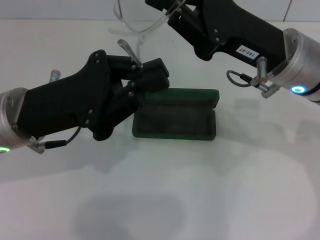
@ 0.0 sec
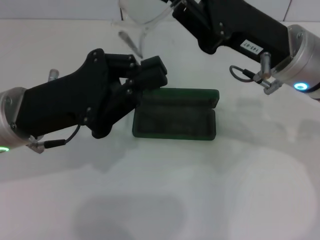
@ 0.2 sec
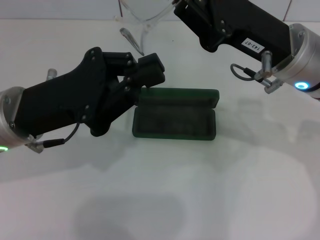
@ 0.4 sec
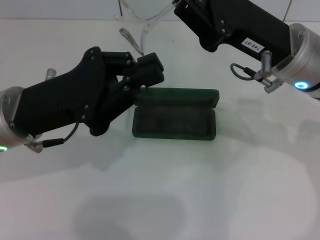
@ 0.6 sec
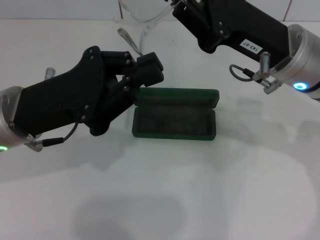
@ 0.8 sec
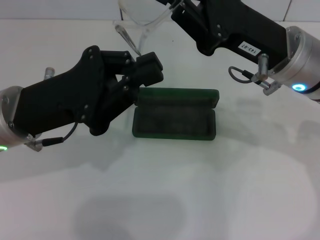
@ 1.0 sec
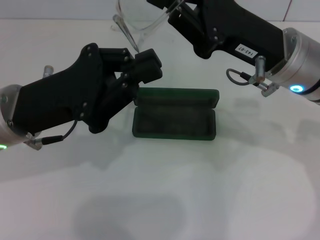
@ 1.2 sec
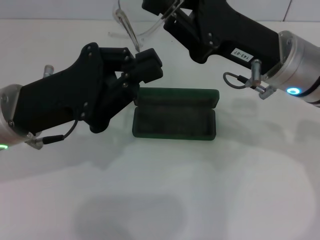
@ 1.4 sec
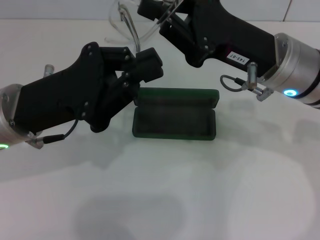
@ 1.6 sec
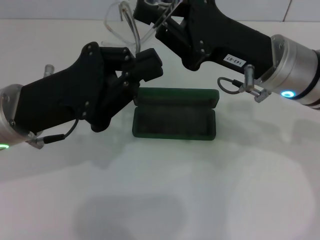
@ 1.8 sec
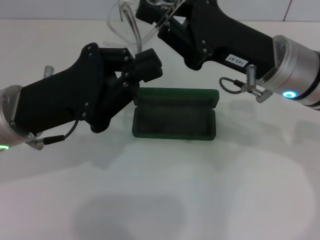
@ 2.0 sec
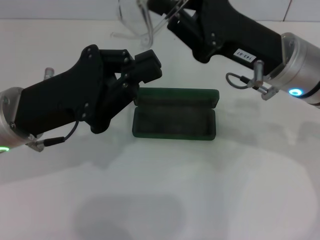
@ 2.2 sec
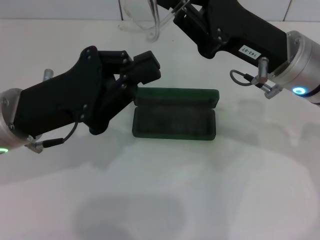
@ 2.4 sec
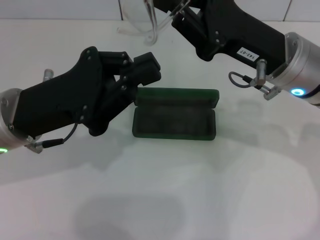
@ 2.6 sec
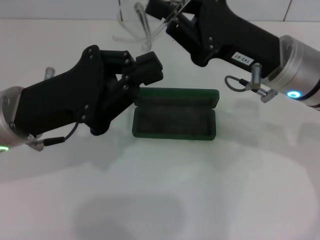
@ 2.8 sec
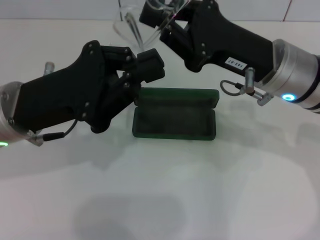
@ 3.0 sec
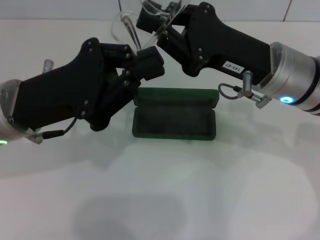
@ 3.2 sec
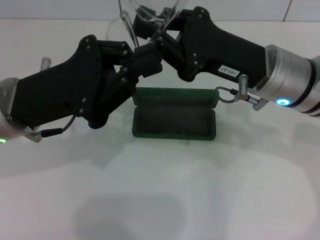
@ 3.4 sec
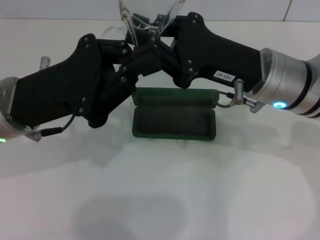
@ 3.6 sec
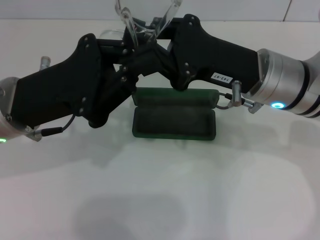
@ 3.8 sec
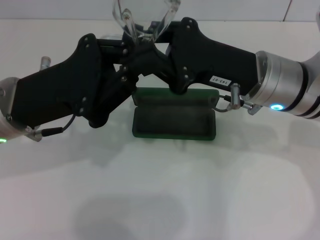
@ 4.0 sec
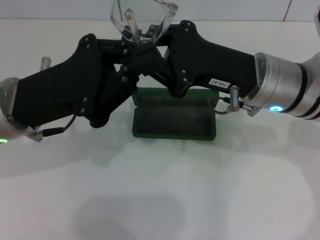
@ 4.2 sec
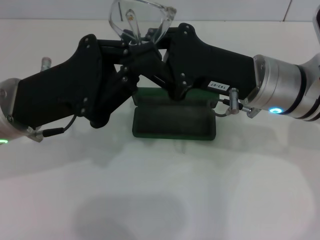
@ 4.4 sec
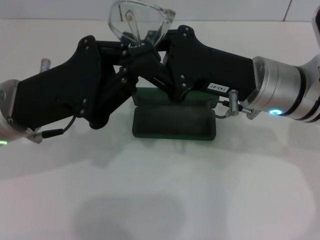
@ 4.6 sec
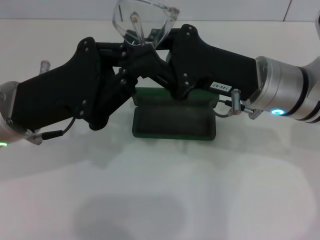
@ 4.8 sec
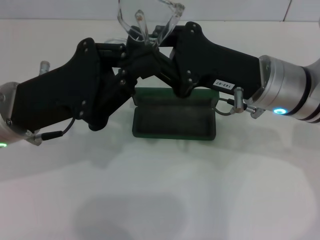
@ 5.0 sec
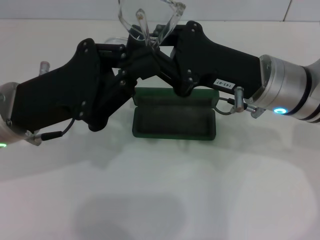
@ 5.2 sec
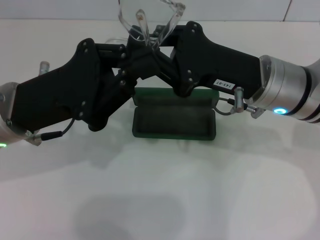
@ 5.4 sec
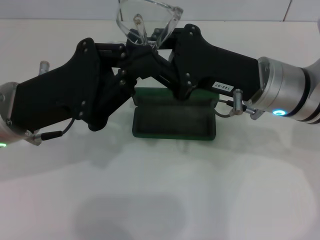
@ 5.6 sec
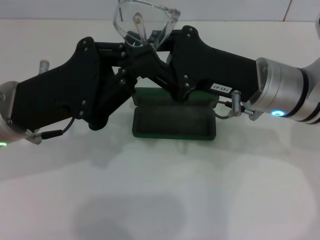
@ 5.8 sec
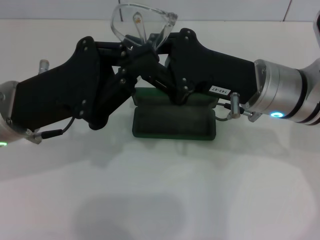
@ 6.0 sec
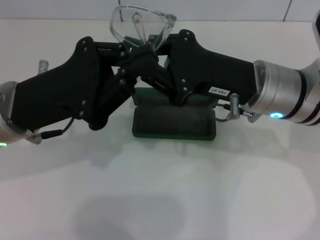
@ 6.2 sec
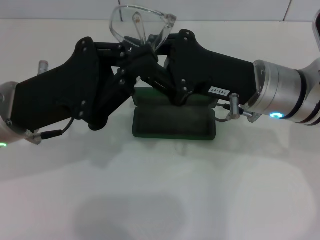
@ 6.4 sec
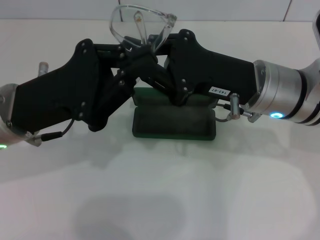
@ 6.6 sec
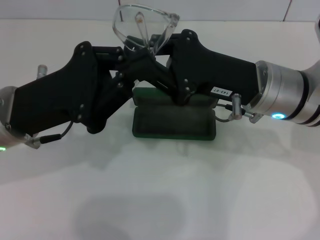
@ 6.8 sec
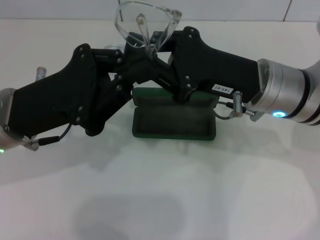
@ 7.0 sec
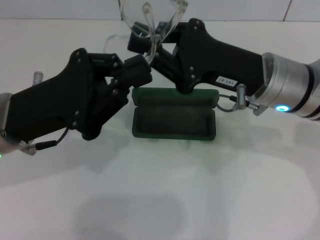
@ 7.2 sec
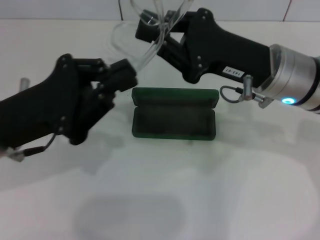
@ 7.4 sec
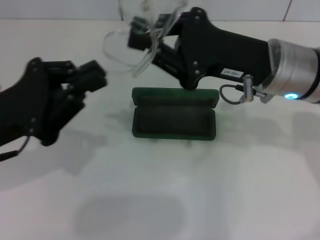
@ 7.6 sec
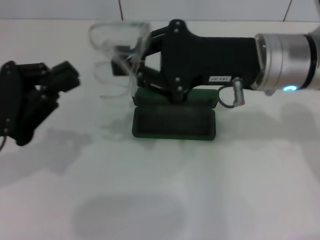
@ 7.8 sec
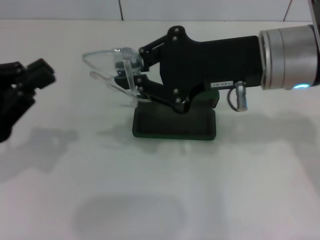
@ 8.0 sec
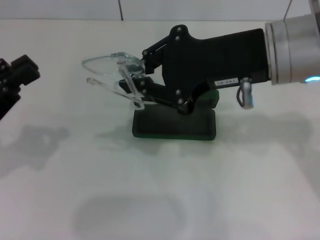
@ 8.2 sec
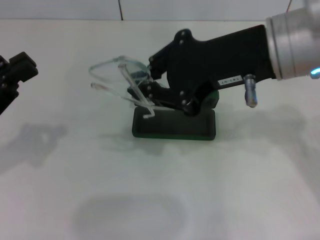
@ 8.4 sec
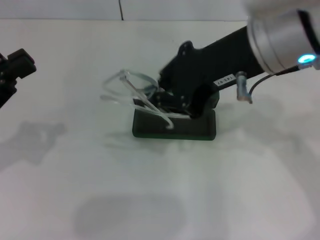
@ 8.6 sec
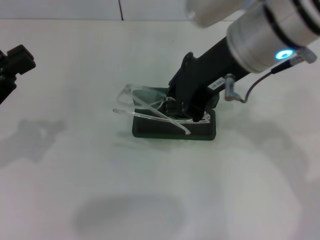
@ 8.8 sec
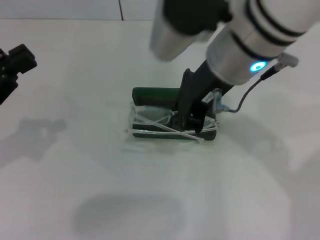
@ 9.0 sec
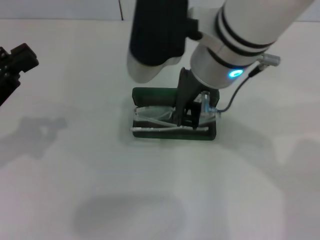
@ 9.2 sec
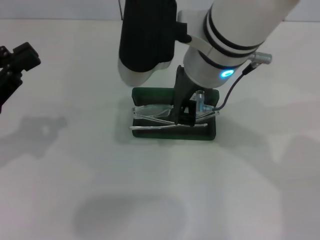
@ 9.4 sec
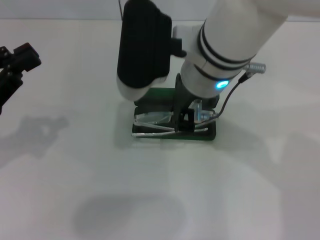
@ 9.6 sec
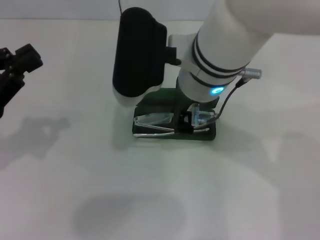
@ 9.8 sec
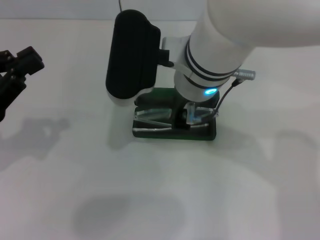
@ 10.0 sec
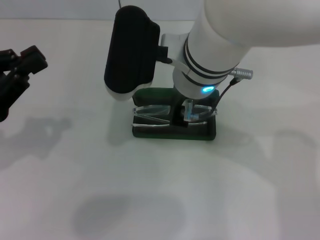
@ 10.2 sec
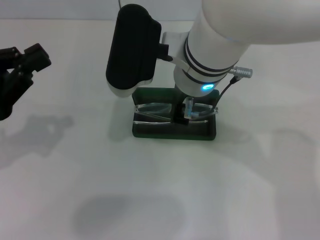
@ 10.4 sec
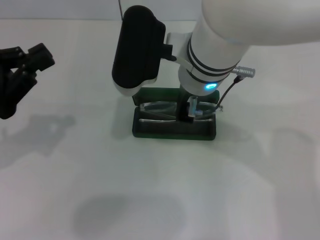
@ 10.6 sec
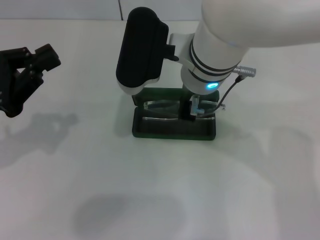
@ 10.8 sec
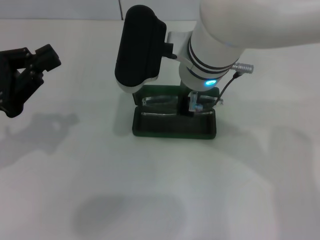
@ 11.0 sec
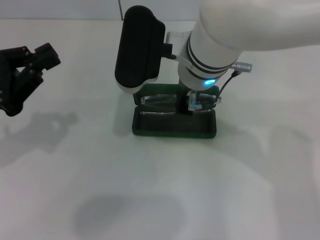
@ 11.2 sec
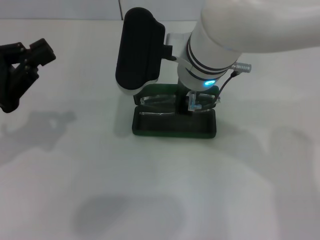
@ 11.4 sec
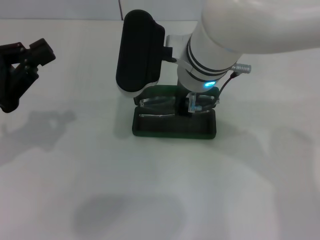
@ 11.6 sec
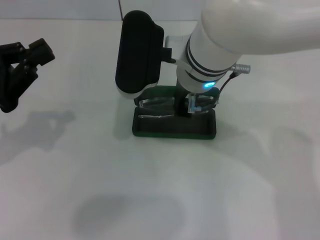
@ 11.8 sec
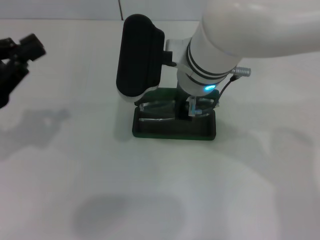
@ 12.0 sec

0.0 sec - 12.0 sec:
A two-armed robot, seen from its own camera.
Step, 0.0 sec - 4.4 sec: Fold the frame with your left hand.
0.0 sec - 3.0 sec: Both grippers stay about where they are.
4.4 sec - 6.0 sec: Both grippers stay about where they are.
6.0 sec - 7.6 sec: The left gripper moves to the left, roughly 5 cm.
7.6 sec - 9.0 sec: The right gripper moves to the left and upward, roughly 10 cm, while the left gripper moves to the left, some 5 cm.
9.0 sec - 10.4 sec: The right gripper ends up roughly 5 cm from where it was.
10.4 sec - 12.0 sec: There are only small adjustments of the grippers.

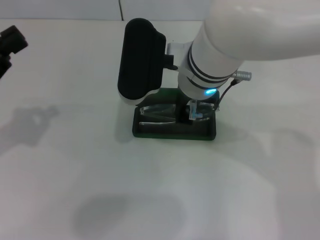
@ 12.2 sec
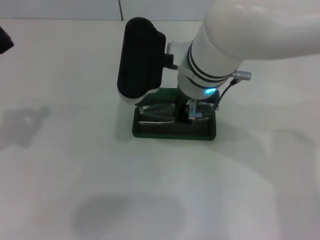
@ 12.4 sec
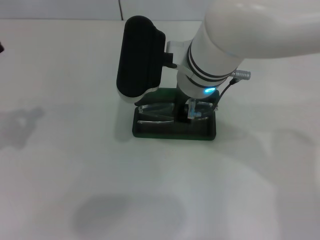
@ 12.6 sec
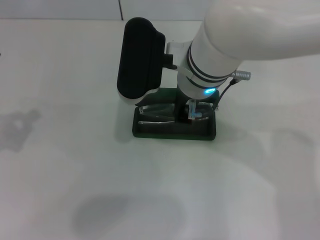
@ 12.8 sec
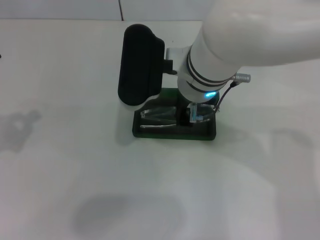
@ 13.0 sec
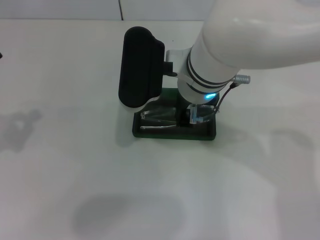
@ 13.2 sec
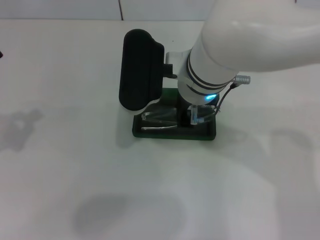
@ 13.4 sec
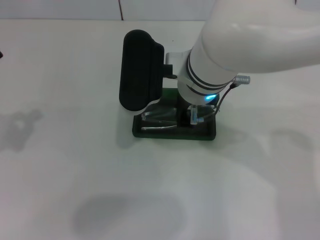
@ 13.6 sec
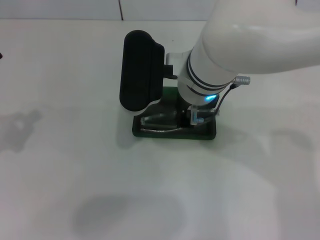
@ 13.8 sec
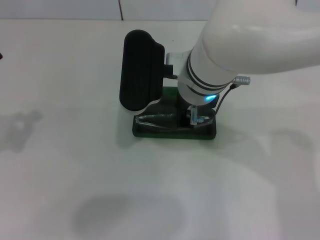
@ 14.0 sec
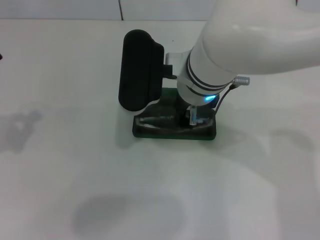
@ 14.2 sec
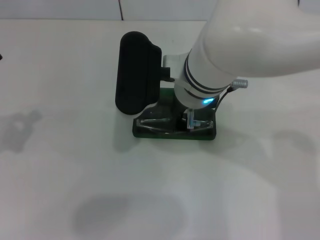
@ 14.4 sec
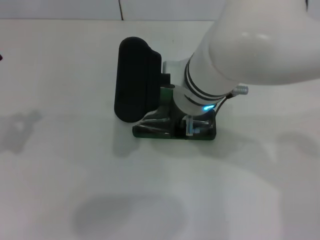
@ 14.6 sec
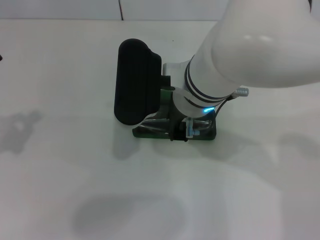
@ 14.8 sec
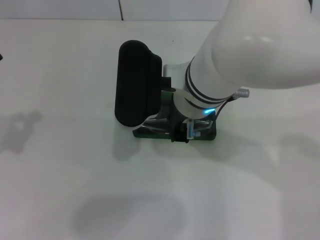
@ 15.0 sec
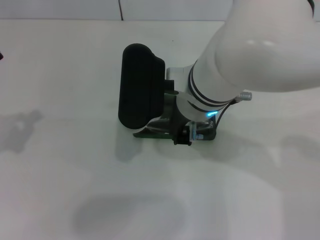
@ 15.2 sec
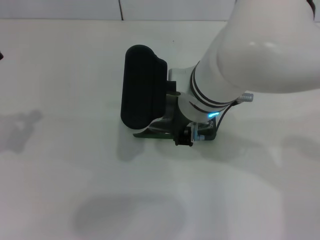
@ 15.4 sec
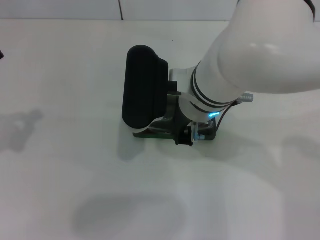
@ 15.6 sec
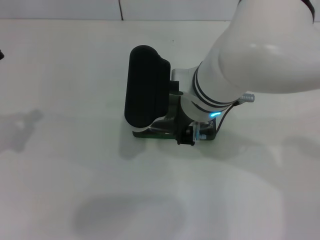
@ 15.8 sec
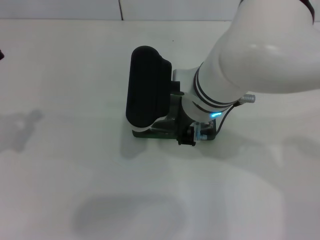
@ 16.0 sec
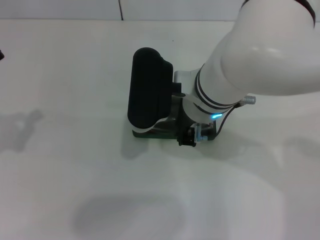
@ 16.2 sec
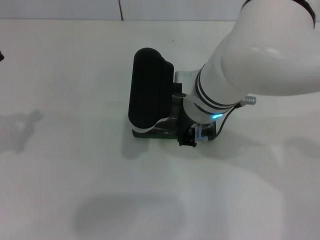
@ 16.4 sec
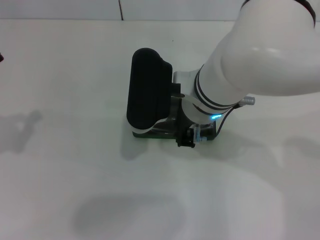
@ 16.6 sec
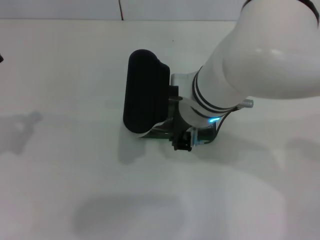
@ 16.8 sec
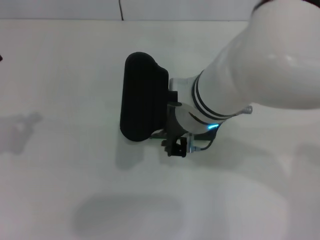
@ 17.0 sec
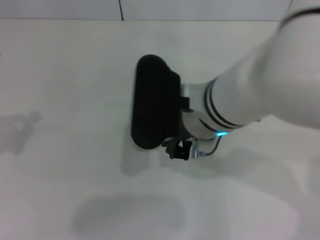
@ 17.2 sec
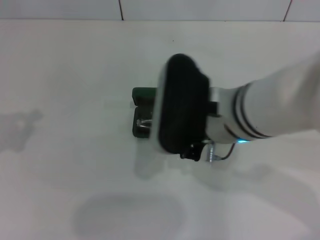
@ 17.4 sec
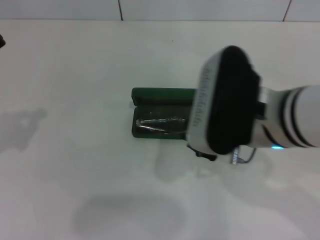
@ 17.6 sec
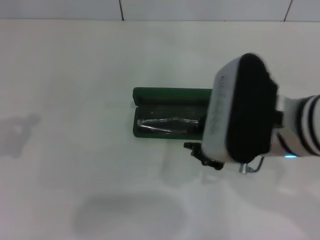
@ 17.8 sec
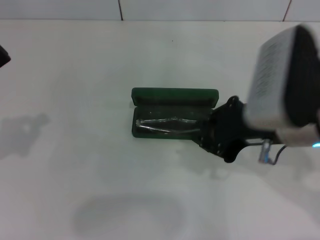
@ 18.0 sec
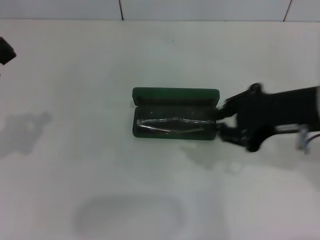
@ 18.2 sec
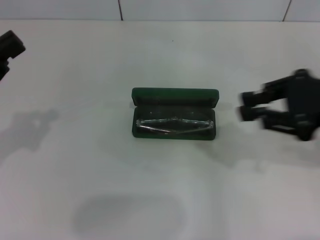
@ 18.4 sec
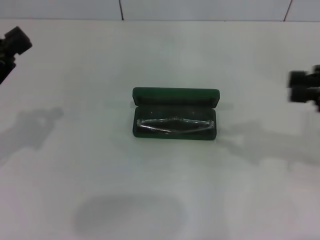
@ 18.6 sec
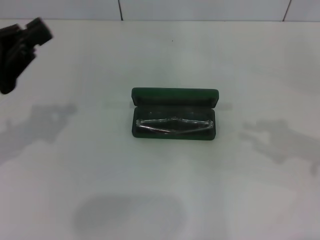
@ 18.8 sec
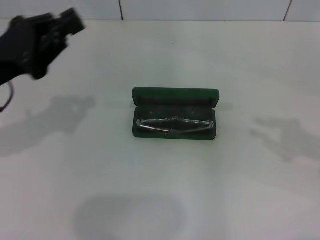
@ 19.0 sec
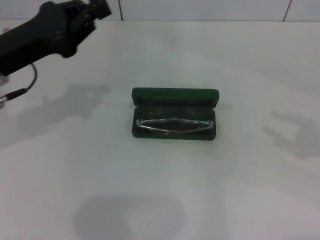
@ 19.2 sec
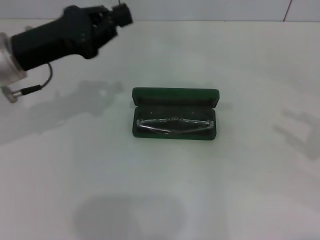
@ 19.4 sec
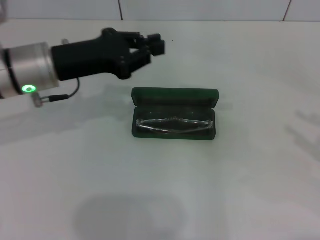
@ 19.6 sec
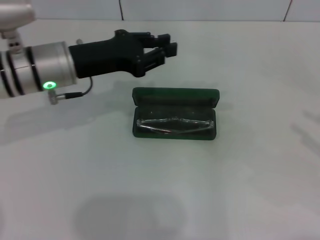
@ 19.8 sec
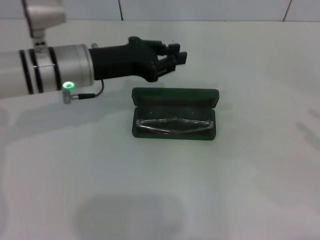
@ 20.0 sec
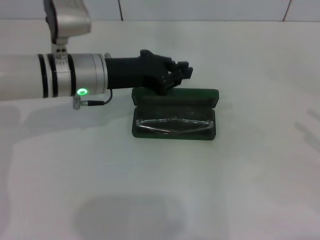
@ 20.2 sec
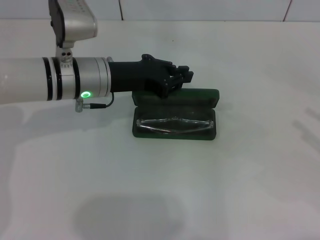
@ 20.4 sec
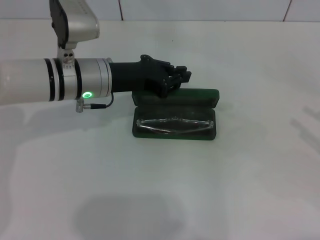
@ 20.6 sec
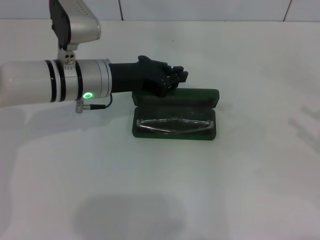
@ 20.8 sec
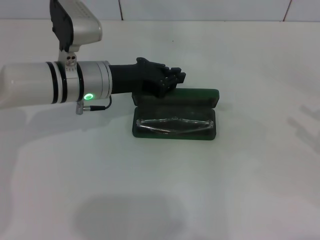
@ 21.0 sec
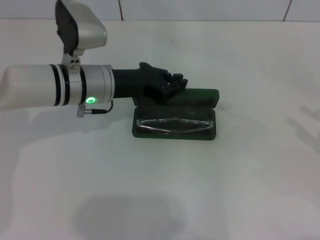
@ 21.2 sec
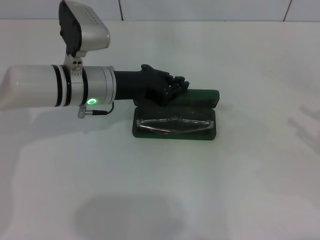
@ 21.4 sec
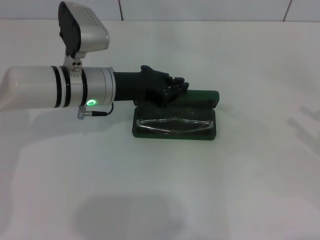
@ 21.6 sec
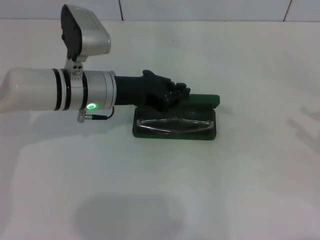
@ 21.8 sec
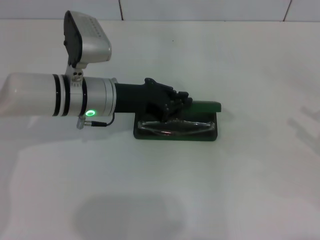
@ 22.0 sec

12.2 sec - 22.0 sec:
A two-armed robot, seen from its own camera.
Step, 12.2 sec - 14.2 sec: Put the glasses into the case with your right hand.
12.2 sec - 16.4 sec: The grippers make only small movements.
16.4 sec - 17.8 sec: The right gripper is displaced to the right and backward by about 10 cm.
17.8 sec - 19.2 sec: The right gripper goes about 25 cm to the right, while the left gripper shifts approximately 15 cm to the right and forward.
19.2 sec - 20.6 sec: The right gripper opens. Meanwhile the left gripper is displaced to the right, downward and forward by approximately 15 cm.
20.6 sec - 22.0 sec: The grippers stay close to where they were, moving slightly.
